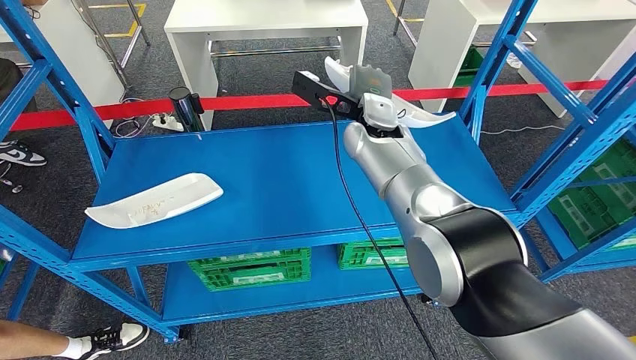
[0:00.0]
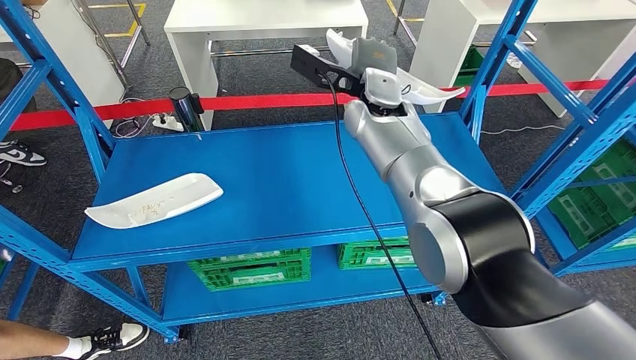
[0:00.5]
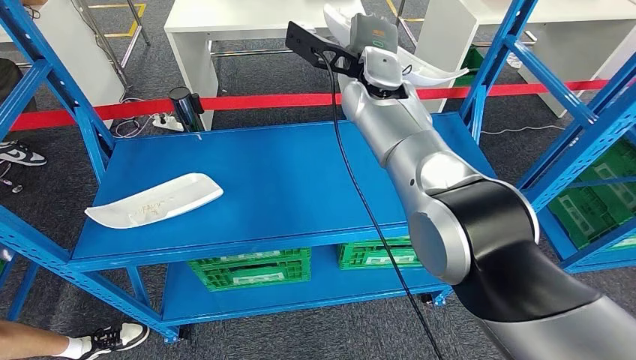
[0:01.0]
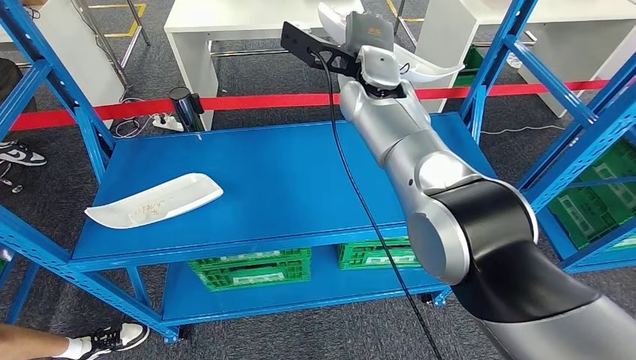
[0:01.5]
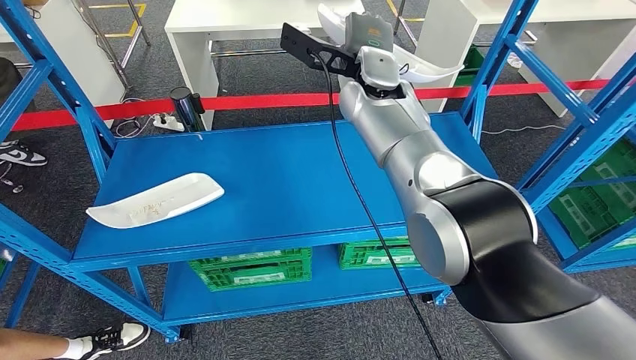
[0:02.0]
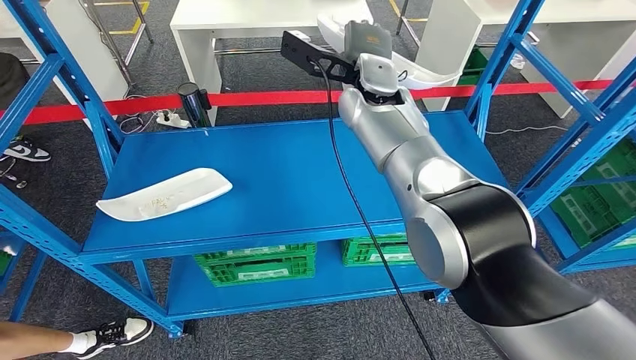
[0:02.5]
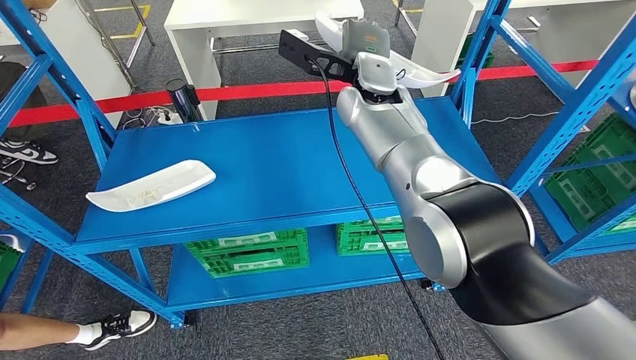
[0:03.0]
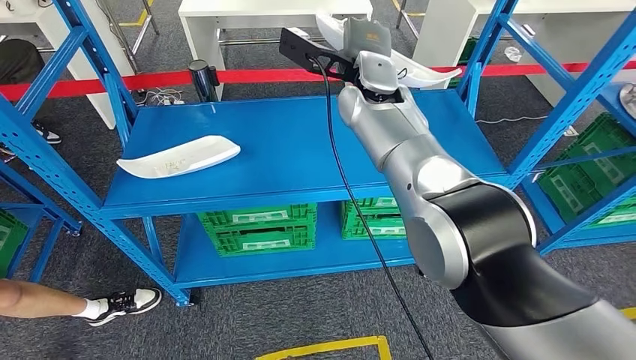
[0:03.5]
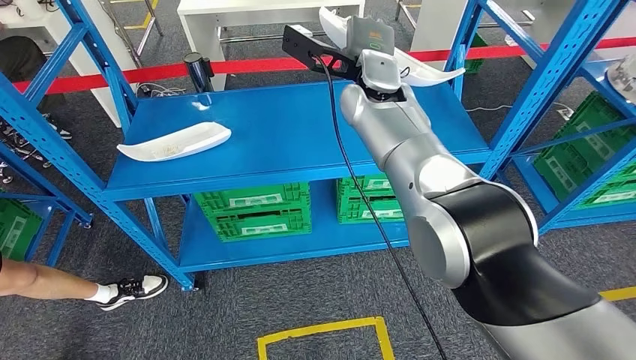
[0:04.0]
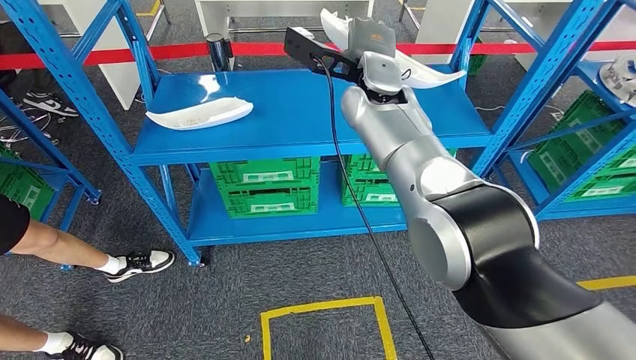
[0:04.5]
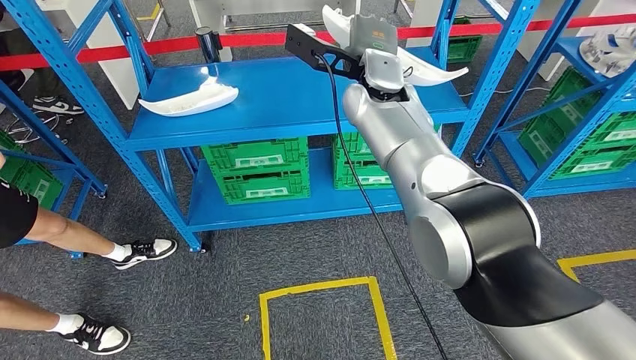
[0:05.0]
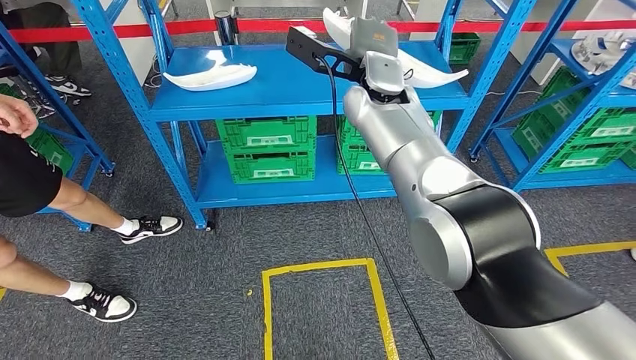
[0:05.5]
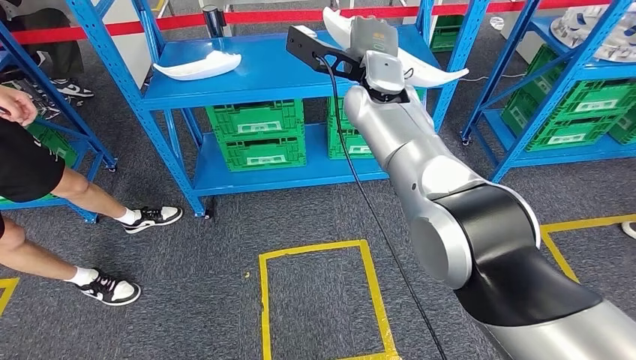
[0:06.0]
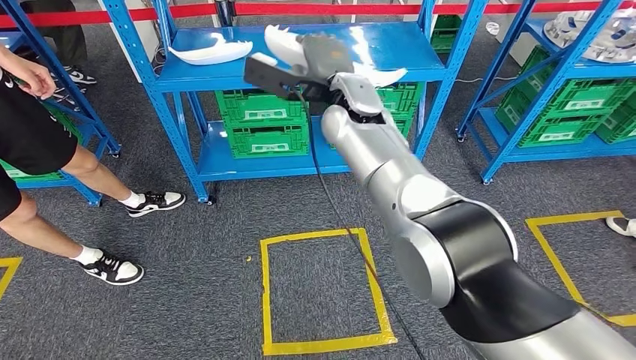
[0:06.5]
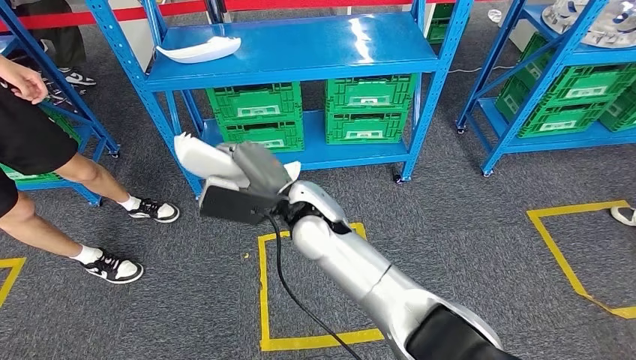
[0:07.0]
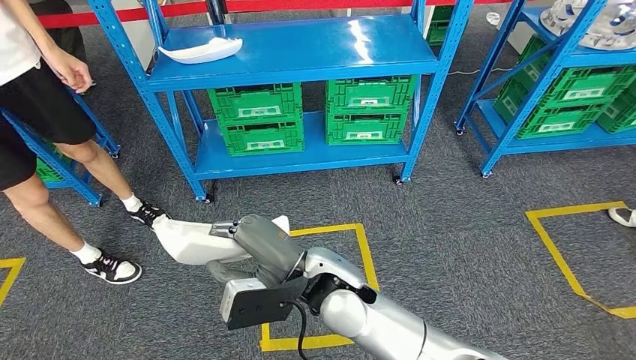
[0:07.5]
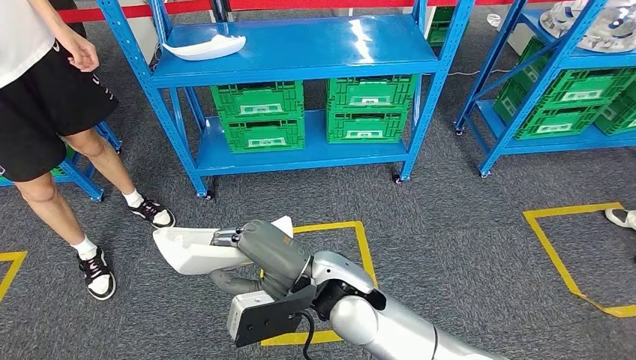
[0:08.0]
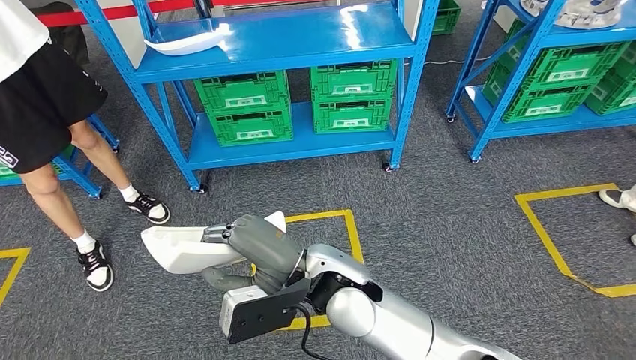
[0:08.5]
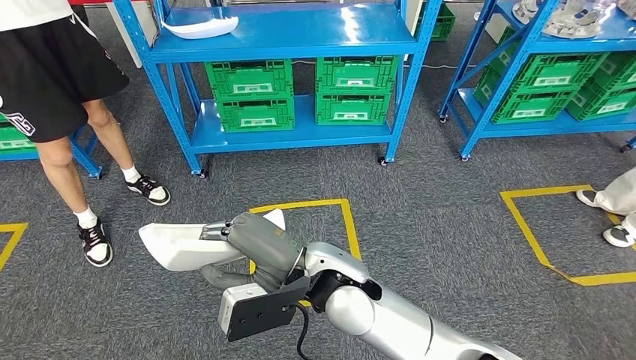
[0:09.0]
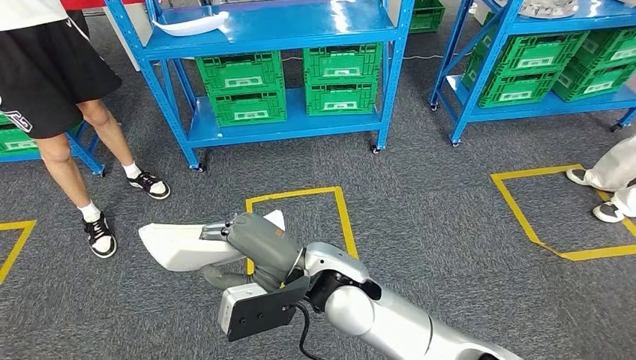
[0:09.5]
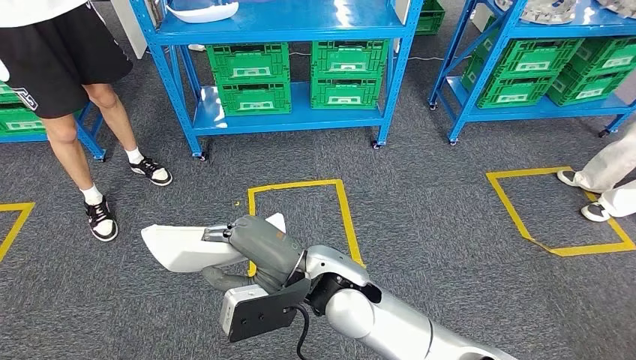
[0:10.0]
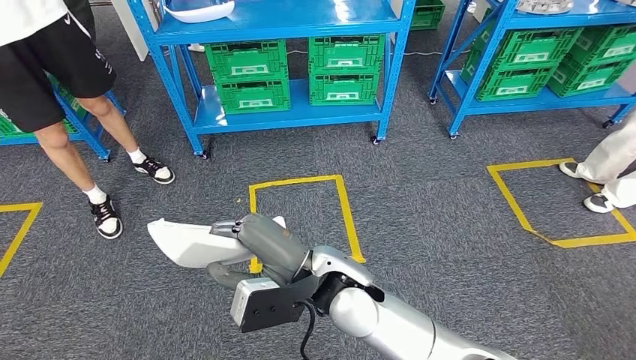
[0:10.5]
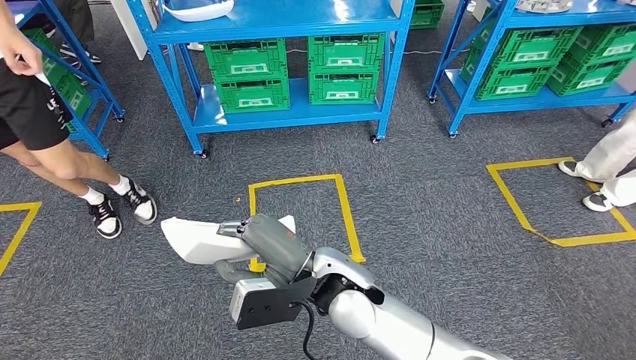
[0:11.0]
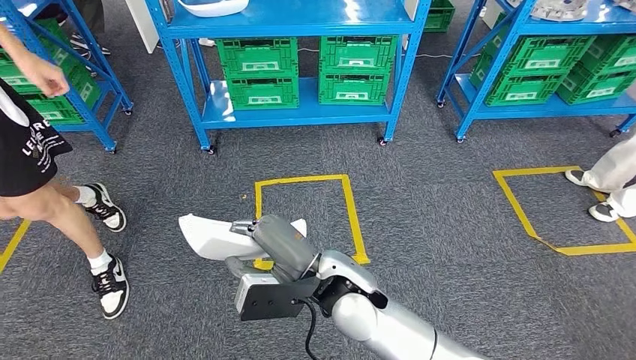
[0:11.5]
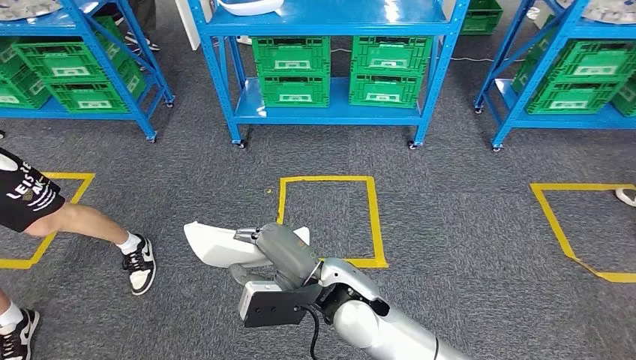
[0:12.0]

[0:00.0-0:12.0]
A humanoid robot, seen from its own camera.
0:00.0 to 0:02.0: The right hand is displaced upward by roughly 10 cm.

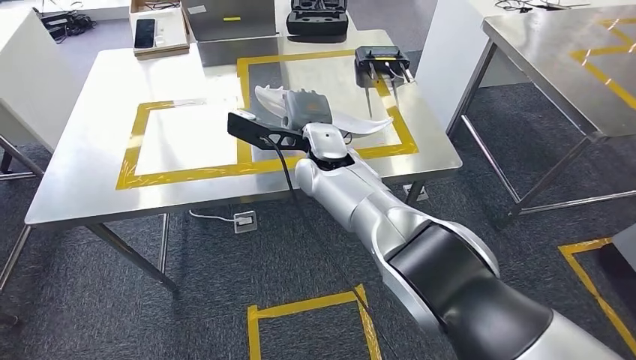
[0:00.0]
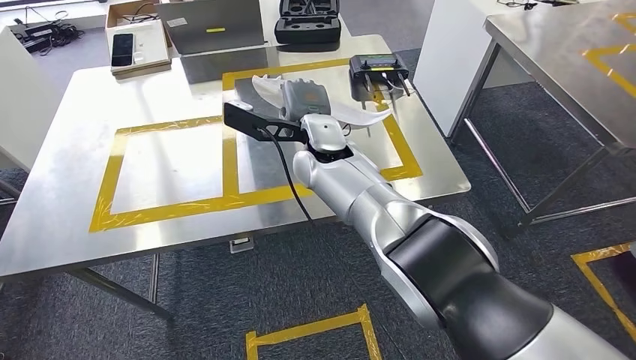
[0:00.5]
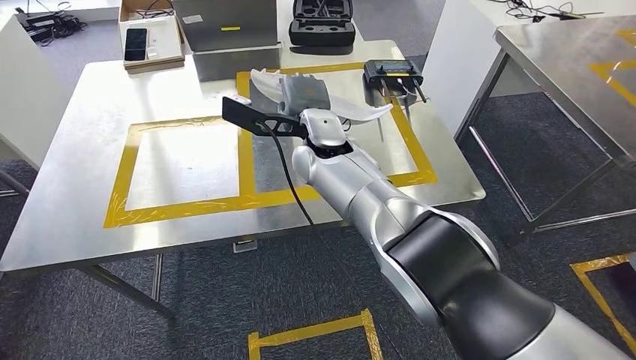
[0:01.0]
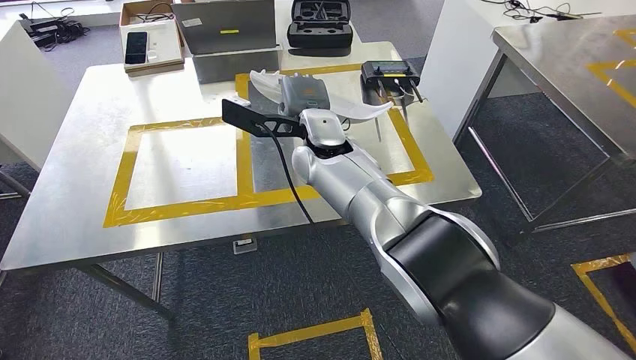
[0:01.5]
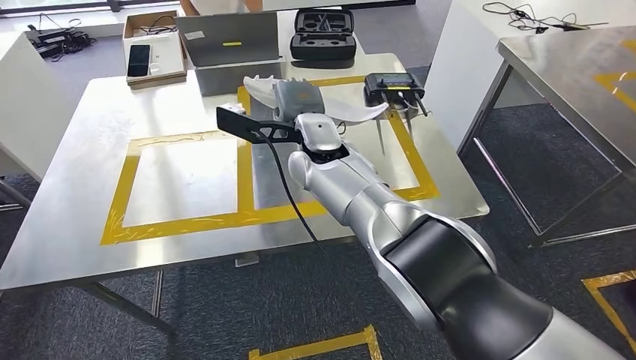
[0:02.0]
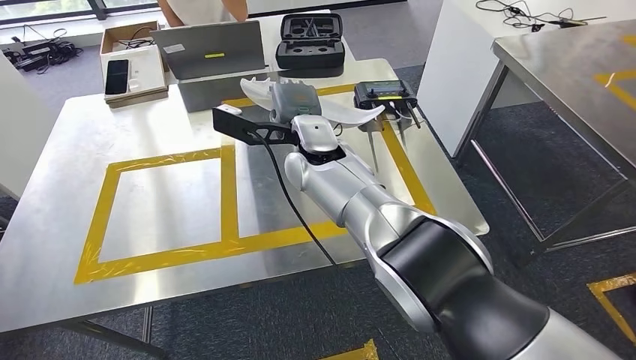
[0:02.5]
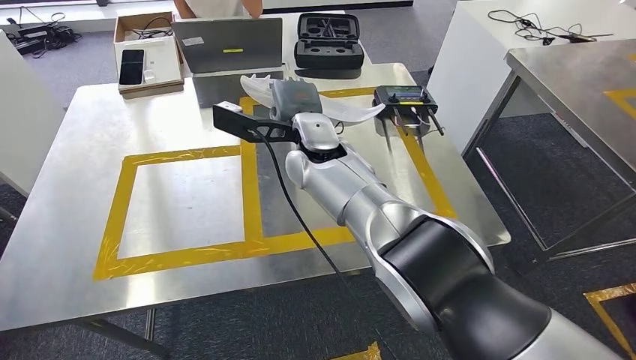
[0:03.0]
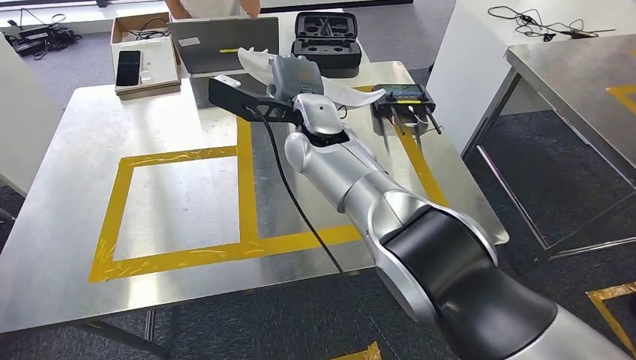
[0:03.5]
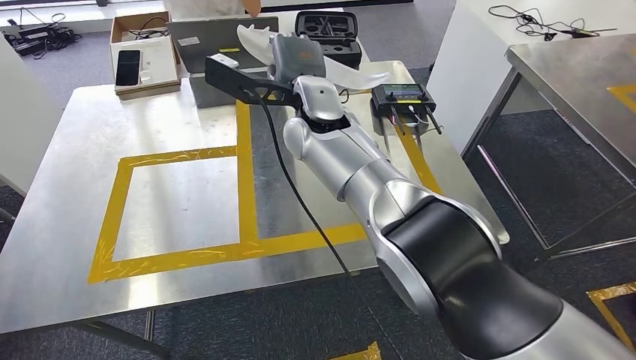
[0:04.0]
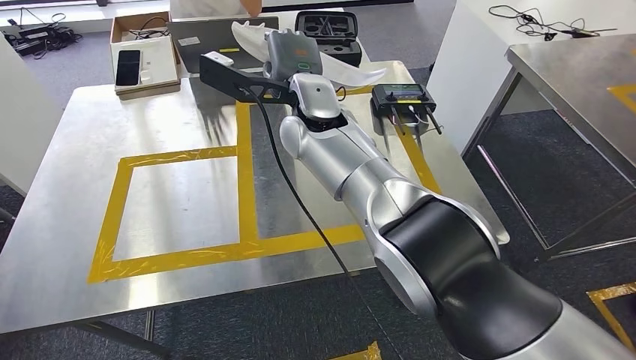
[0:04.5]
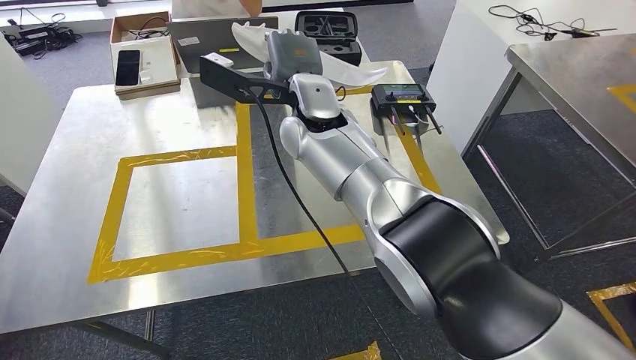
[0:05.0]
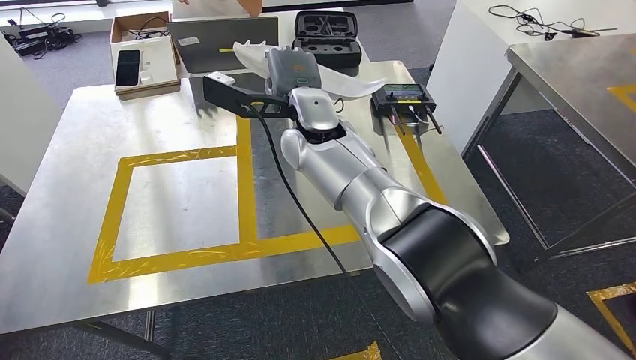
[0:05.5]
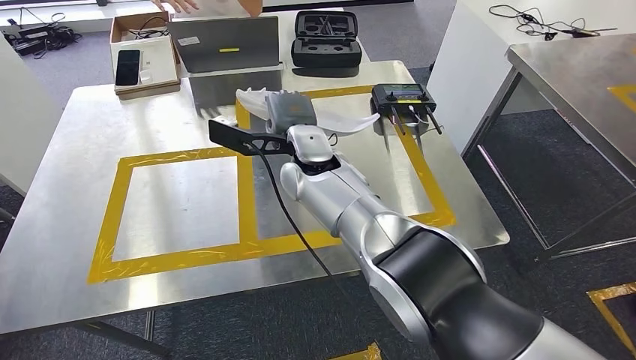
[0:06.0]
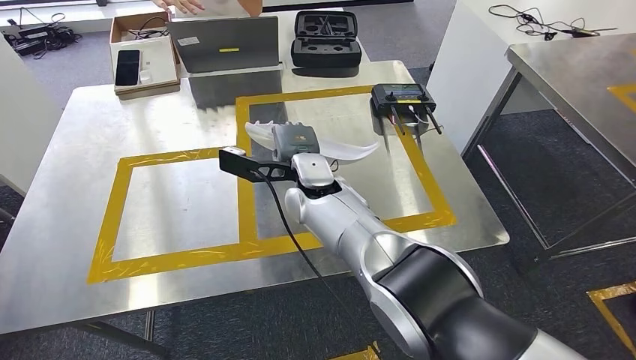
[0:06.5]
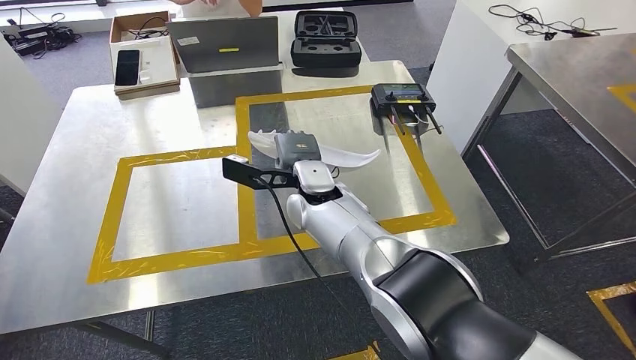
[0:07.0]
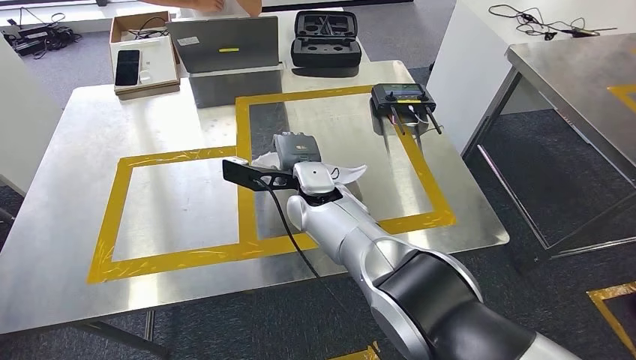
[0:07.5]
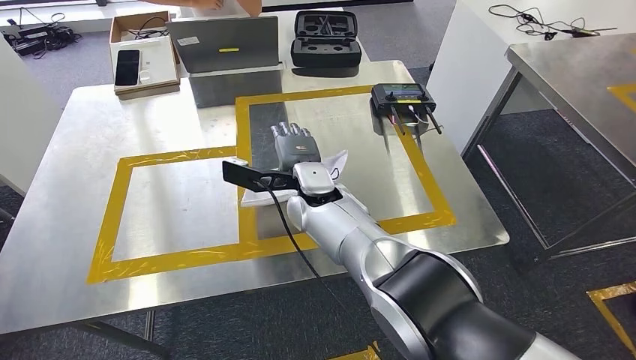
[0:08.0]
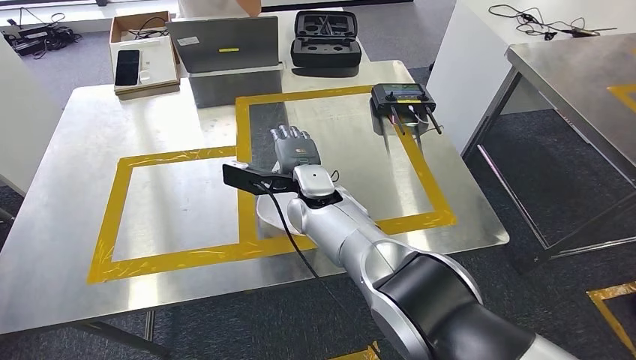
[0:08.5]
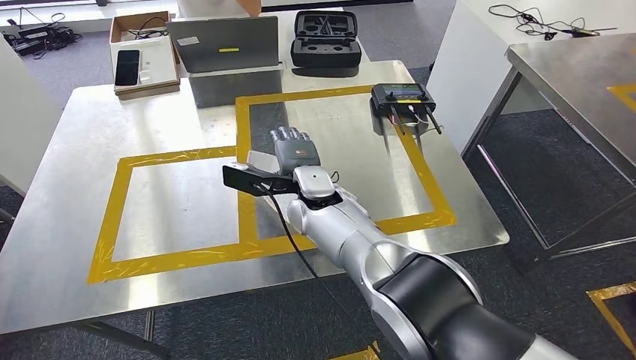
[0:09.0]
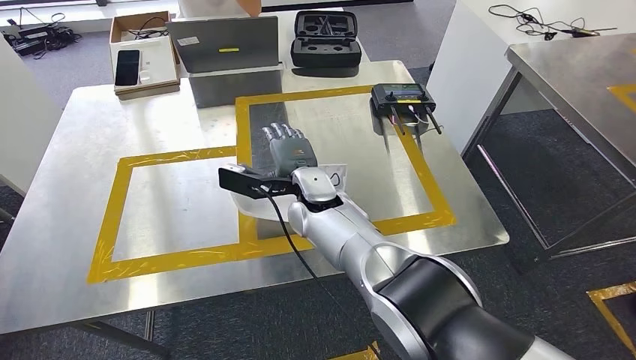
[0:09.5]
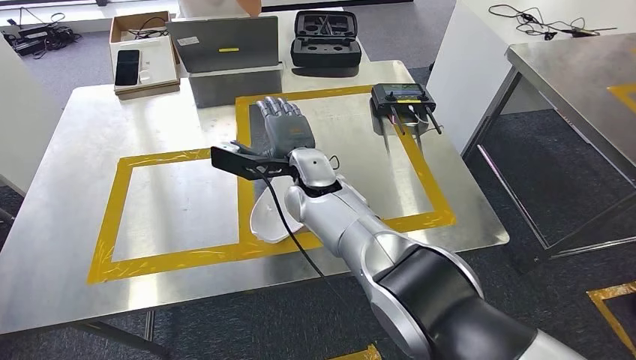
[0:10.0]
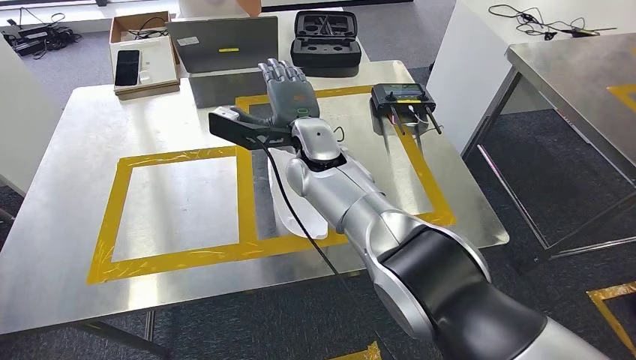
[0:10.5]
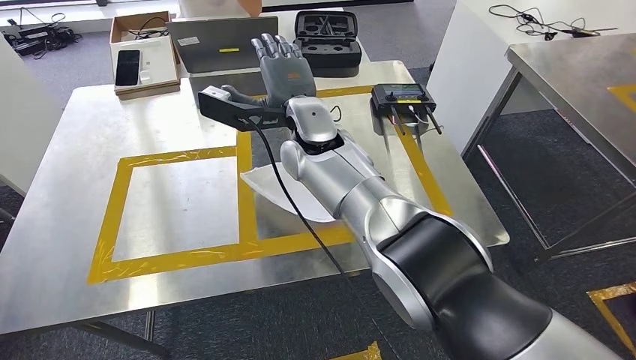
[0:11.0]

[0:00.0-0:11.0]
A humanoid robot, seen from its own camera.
Step, 0:01.0 to 0:08.5: Insert the small component into the corresponding slot on the workbench.
0:03.5 to 0:05.5: The hands make only small movements.
0:05.5 to 0:07.5: The right hand heads downward, covering some 10 cm.
0:07.5 to 0:09.0: Both hands stay put.
0:09.0 to 0:11.0: The right hand is displaced upward by about 10 cm.
